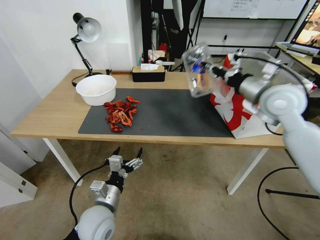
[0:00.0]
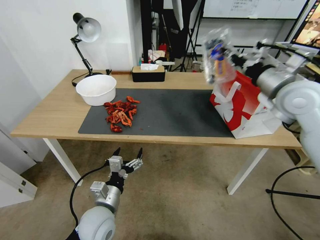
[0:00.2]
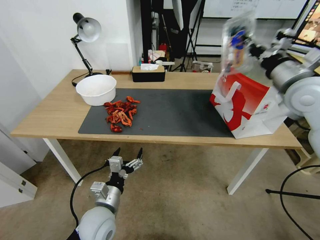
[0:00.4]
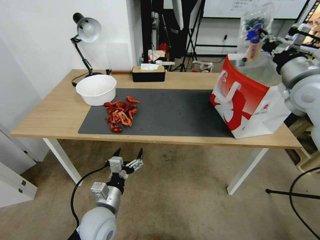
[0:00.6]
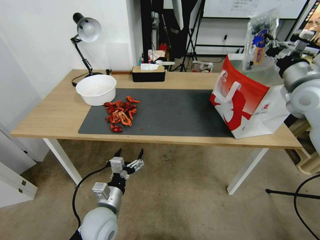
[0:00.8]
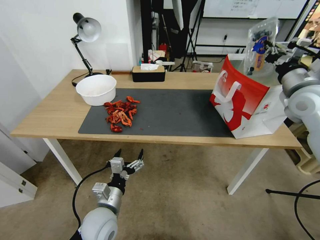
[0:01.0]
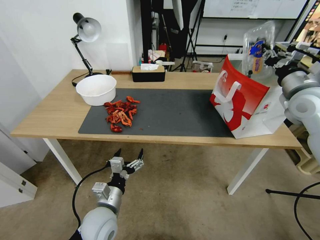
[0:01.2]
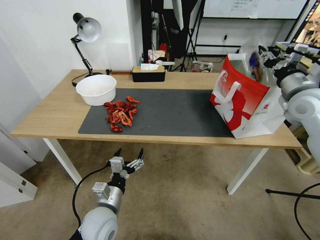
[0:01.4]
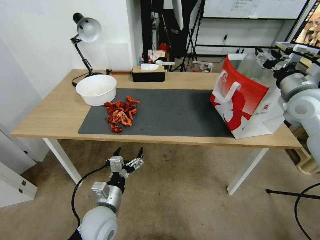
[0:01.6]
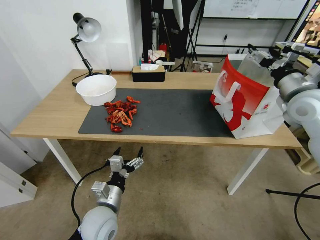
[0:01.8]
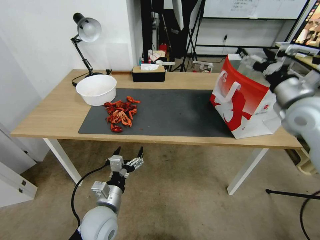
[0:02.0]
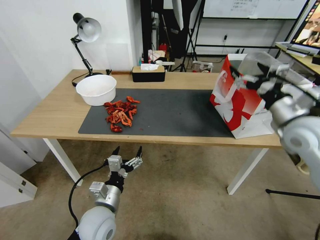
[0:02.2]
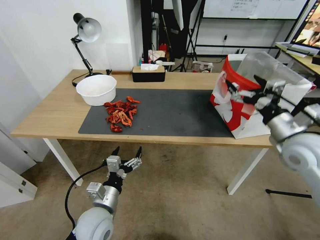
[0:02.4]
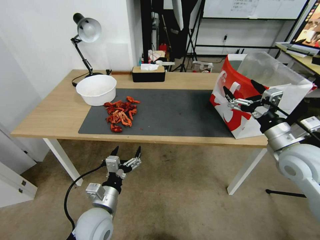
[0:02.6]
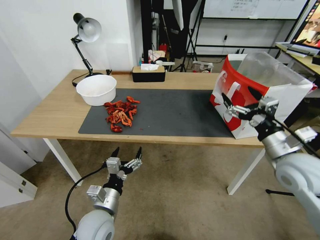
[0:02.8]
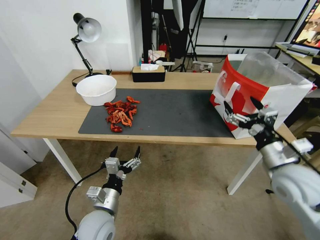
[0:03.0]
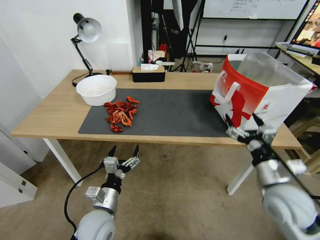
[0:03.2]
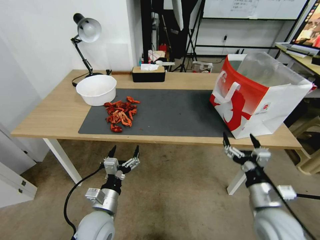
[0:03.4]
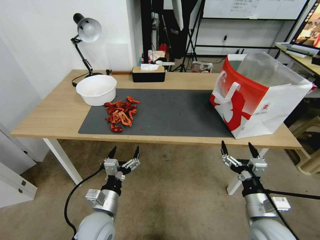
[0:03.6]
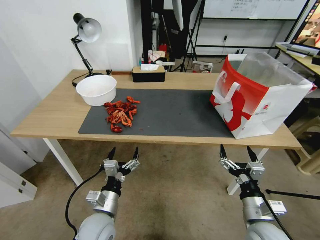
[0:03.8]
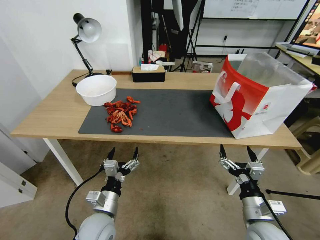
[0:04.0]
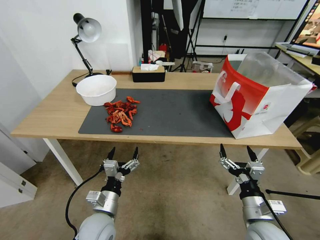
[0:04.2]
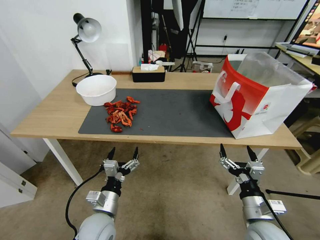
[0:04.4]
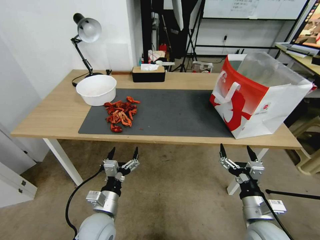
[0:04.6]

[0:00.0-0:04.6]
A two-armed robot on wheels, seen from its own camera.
Task of the whole recording: Close the takeout container lid, then place the container into the takeout bag.
0:00.0 to 0:01.6: The right gripper moves to the right, approximately 10 cm, and opens.
0:01.6 to 0:03.0: The right gripper moves backward and downward, approximately 15 cm, and opens.
0:03.0 to 0:04.6: The right gripper goes about 20 cm downward, backward and to the left.

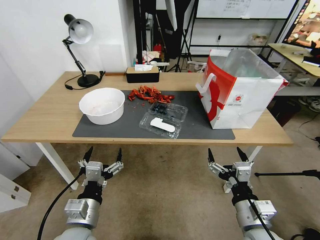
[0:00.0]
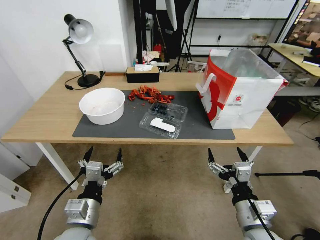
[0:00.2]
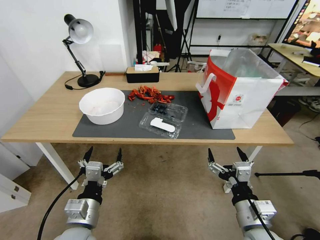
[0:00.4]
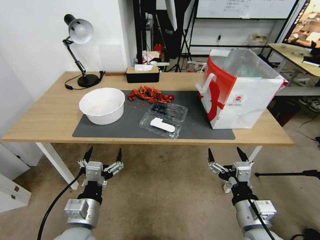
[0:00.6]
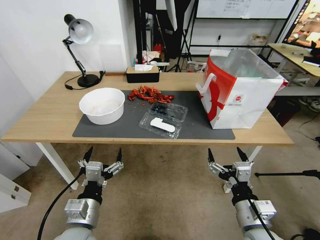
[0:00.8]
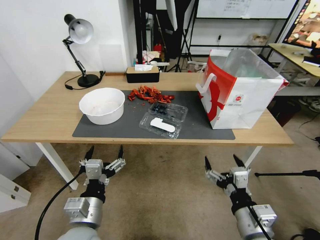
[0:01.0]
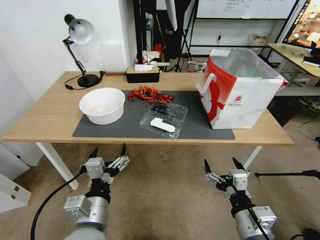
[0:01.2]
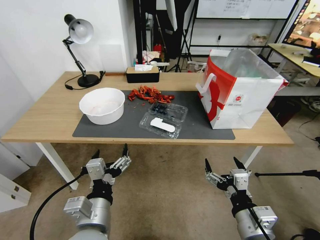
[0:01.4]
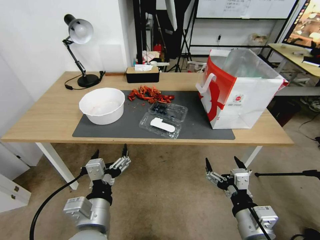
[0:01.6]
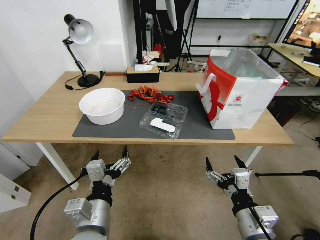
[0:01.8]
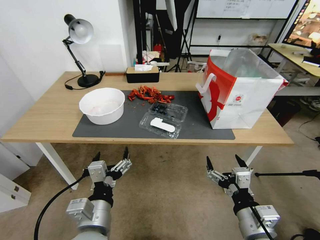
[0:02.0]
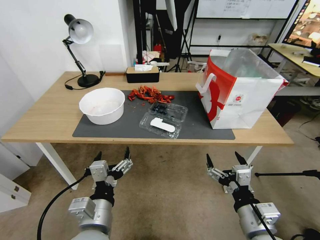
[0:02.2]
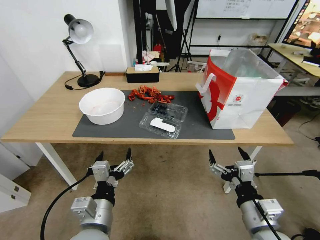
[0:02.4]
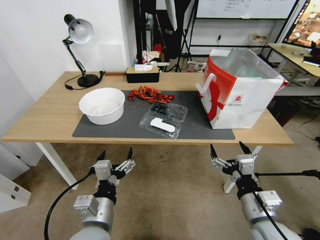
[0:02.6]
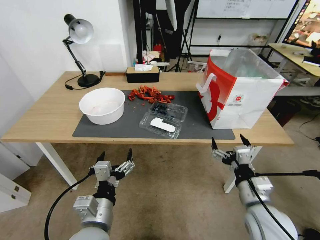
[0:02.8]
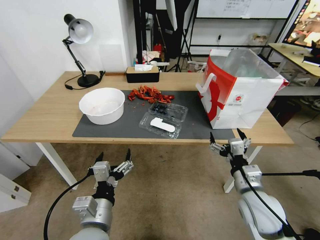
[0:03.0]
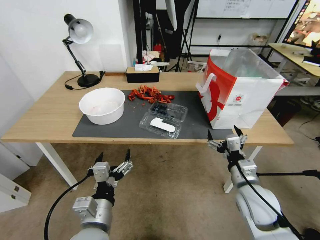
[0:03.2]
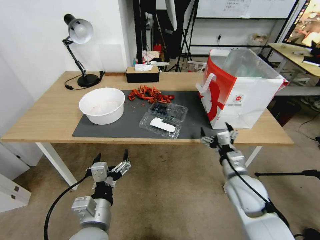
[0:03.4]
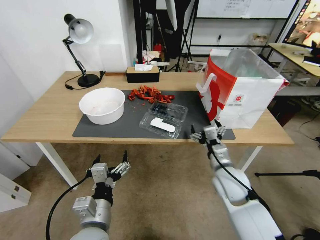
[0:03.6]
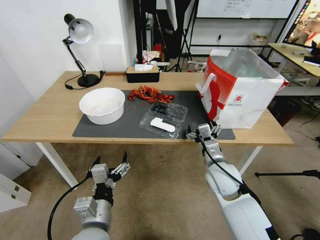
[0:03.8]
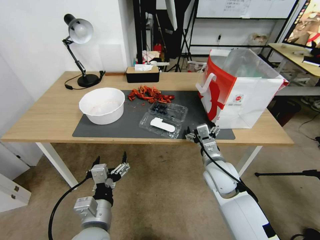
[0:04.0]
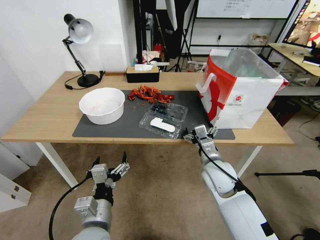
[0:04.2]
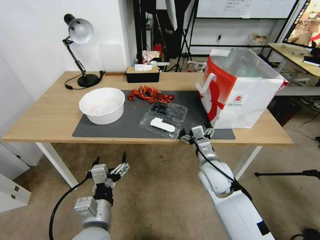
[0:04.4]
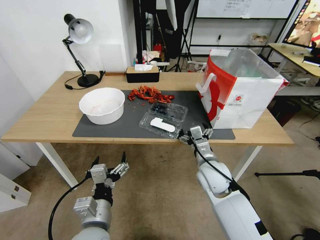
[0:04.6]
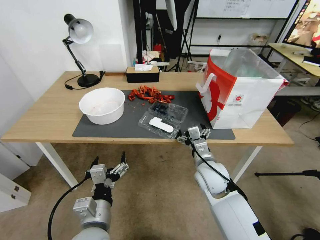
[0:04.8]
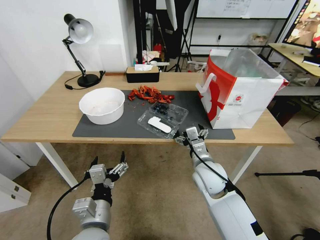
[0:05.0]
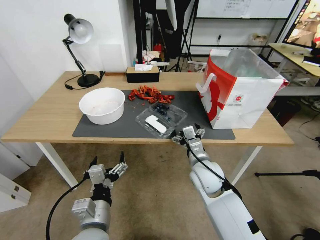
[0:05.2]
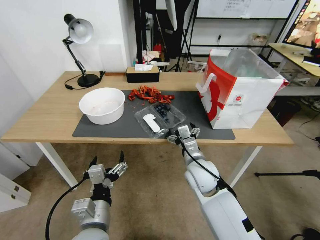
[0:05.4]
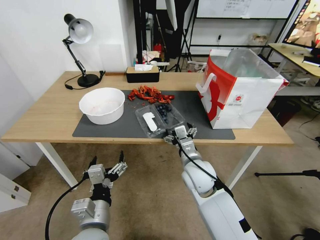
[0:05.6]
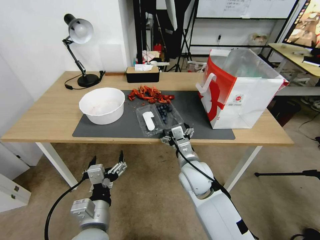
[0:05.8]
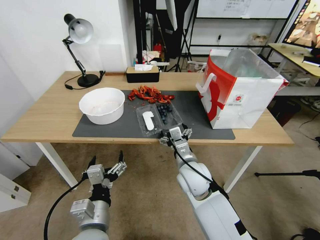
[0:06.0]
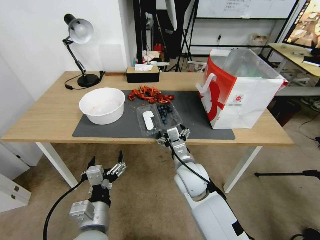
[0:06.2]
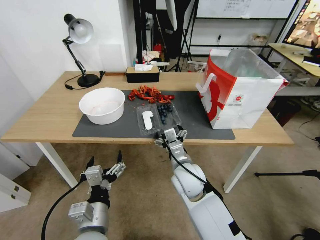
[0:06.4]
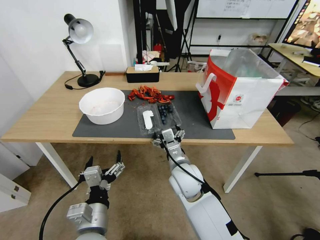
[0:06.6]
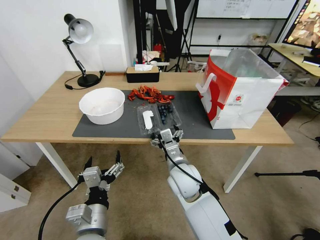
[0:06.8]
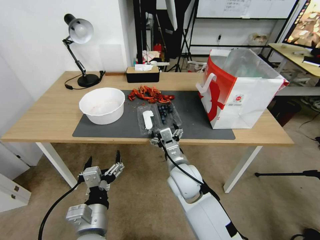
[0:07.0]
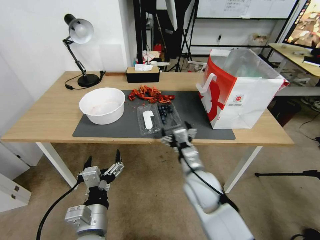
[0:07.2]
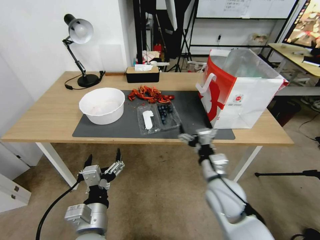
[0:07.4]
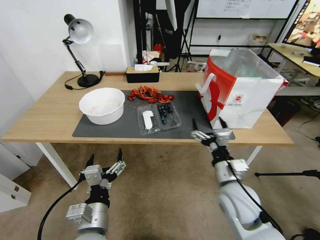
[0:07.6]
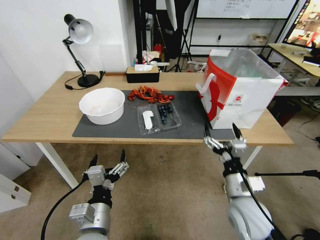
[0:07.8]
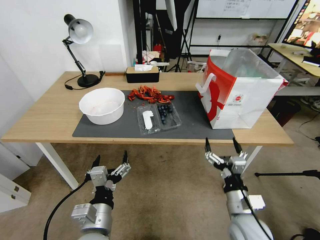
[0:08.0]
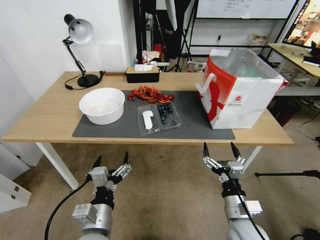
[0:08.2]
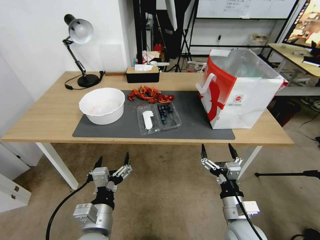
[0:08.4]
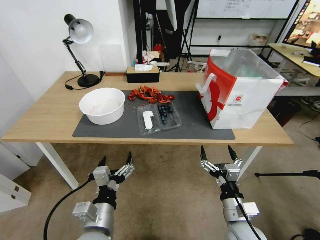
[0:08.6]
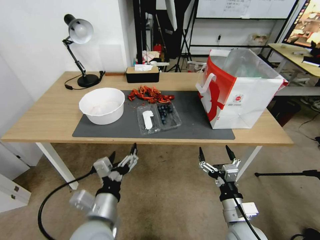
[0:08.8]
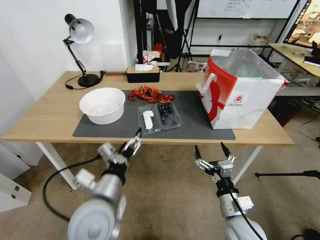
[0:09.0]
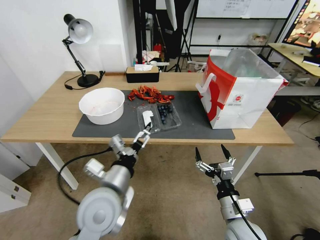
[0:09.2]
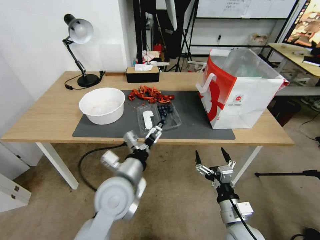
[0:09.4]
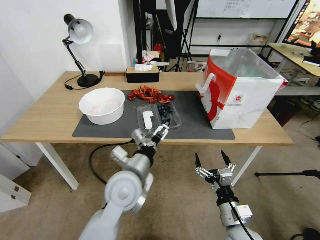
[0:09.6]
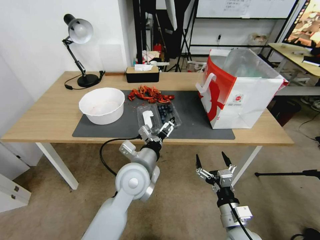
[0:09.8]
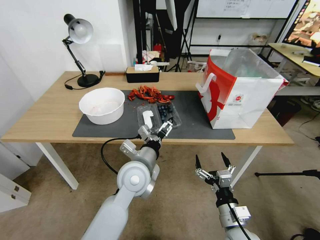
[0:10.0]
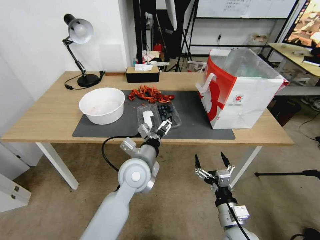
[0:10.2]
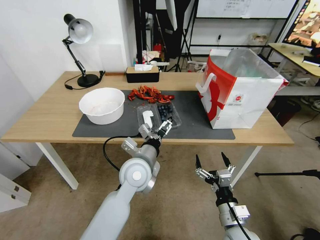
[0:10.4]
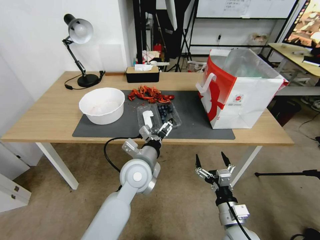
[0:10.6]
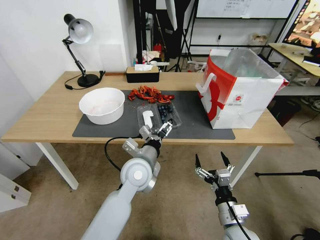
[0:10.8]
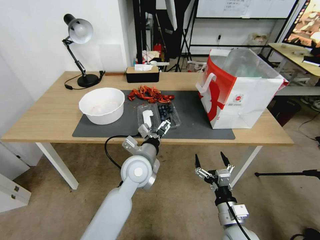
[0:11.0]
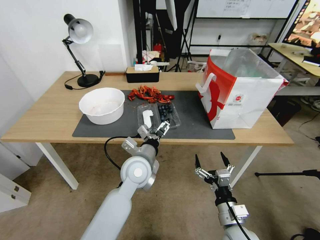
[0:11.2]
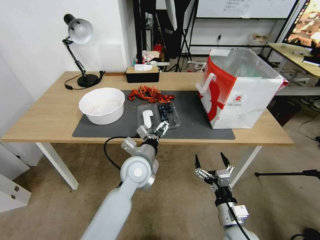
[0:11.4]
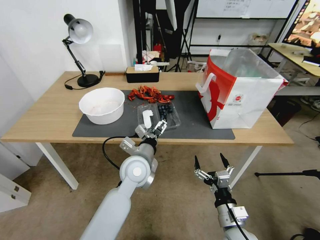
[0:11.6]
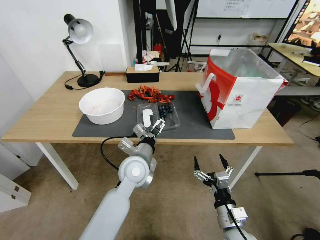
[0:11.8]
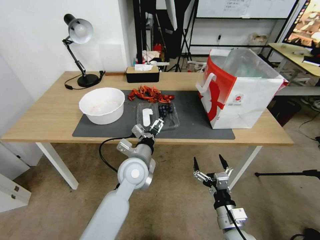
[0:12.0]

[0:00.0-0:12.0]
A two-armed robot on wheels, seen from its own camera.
Task of the whole recording: Close the takeout container lid, then place the container into the takeout bag.
0:01.6 to 0:03.0: The right gripper heads forward, covering some 10 cm.
0:03.0 to 0:04.4: The right gripper is displaced forward and to the left by about 15 cm.
0:04.4 to 0:06.0: The right gripper is displaced to the left by about 5 cm.
0:06.0 to 0:07.6: The right gripper shifts some 15 cm to the right and backward.
0:07.6 to 0:09.0: The left gripper travels upward by approximately 5 cm. The right gripper is displaced downward and backward by approximately 10 cm.
0:09.0 to 0:10.4: The left gripper is displaced forward and to the right by about 15 cm.
0:10.4 to 0:12.0: The grippers move only a little.

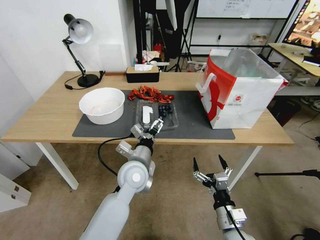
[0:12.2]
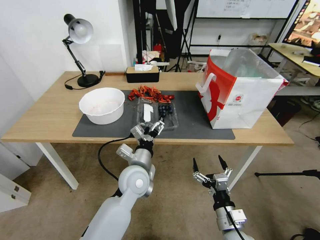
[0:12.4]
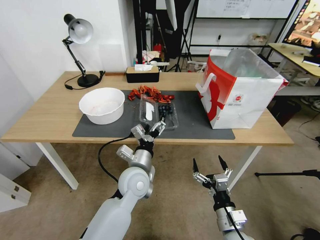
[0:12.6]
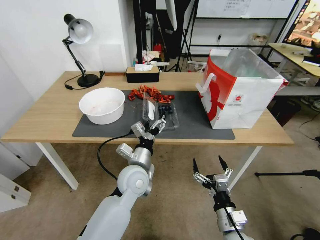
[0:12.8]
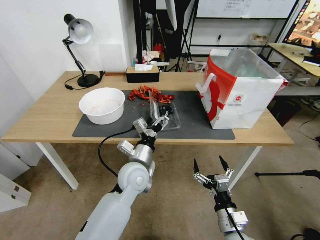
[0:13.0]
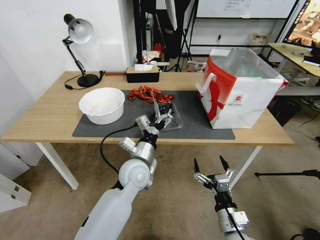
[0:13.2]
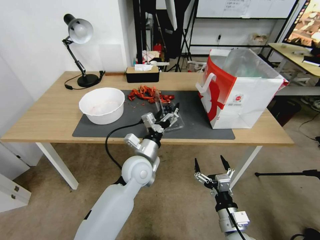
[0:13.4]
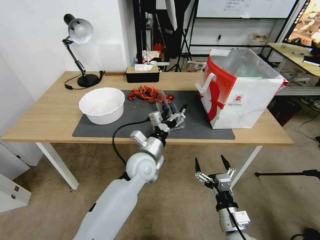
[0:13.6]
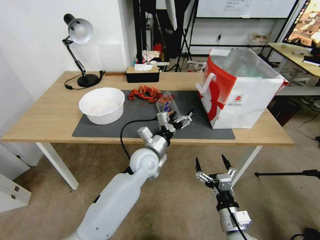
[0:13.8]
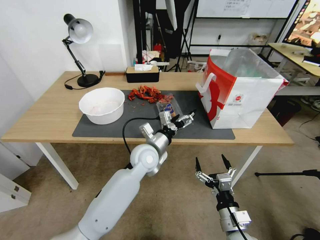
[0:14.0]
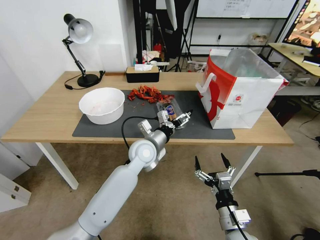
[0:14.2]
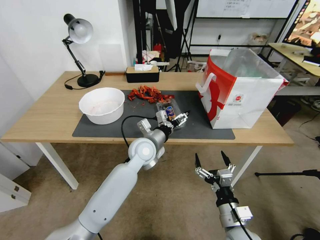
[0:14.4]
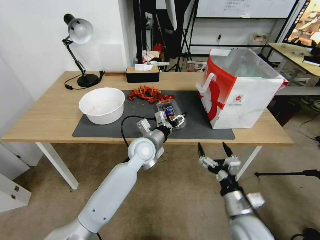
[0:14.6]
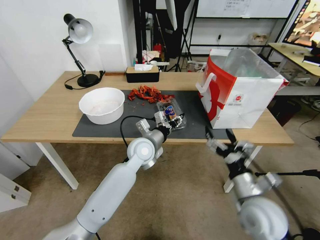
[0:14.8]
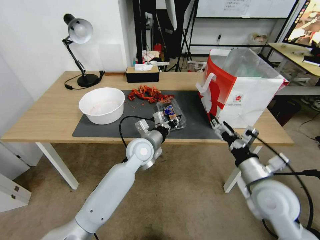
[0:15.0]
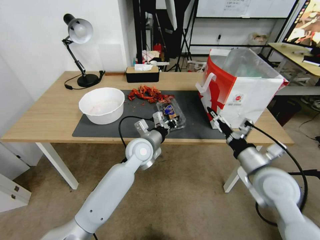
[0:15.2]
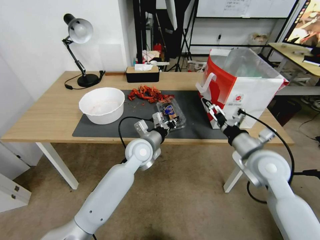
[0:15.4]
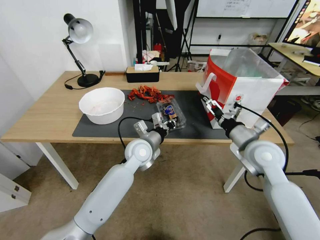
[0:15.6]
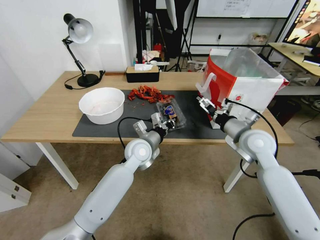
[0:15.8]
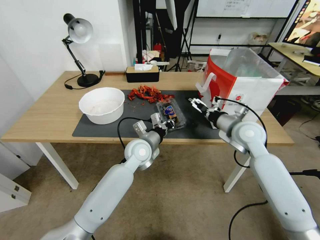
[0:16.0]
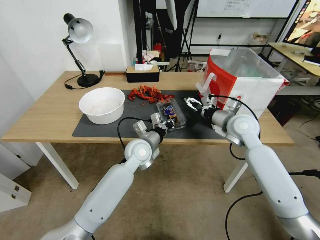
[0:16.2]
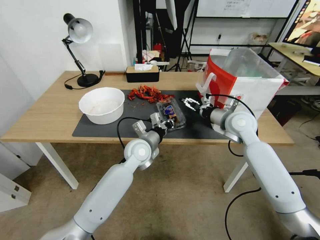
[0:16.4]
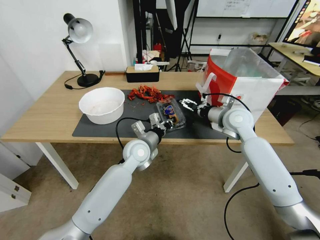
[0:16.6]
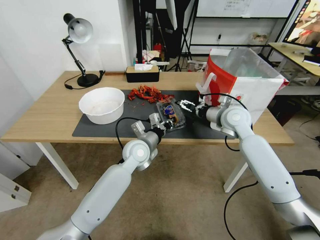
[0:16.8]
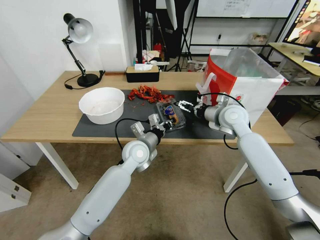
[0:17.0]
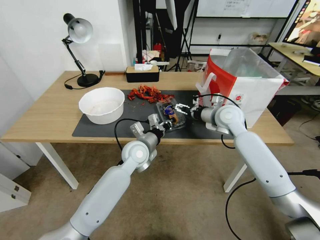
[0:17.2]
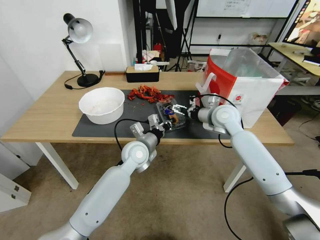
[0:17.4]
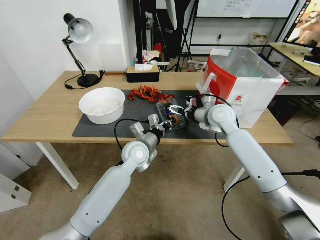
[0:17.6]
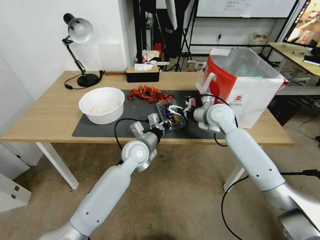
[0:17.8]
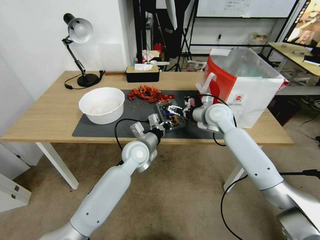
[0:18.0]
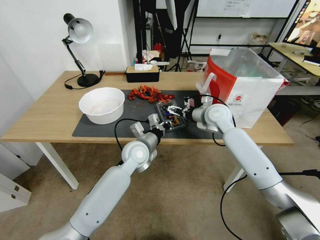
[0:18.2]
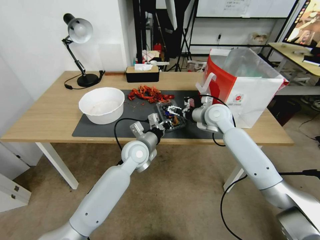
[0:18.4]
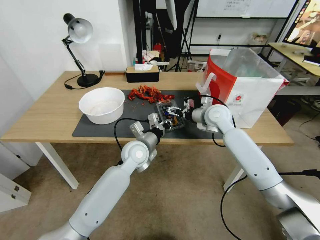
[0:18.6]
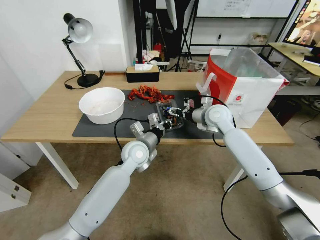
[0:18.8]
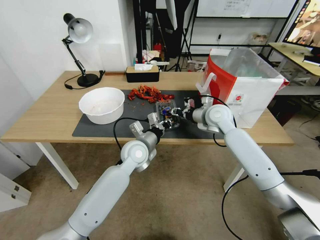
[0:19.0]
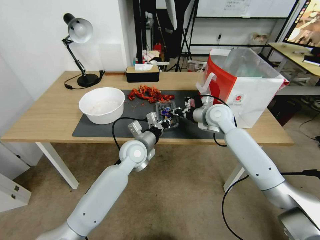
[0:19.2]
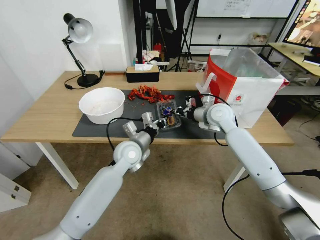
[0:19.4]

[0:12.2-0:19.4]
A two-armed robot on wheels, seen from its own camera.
Task of the whole recording: Close the takeout container lid, then place the container into the takeout bag.
0:13.6 to 0:15.0: The right gripper moves upward, forward and to the right, some 20 cm. The left gripper shifts by approximately 5 cm, and closes.
0:15.0 to 0:16.6: The right gripper heads forward, covering roughly 20 cm.
0:16.6 to 0:18.0: The right gripper ends up roughly 5 cm from where it was.
0:18.0 to 0:19.4: The right gripper closes its fingers.
